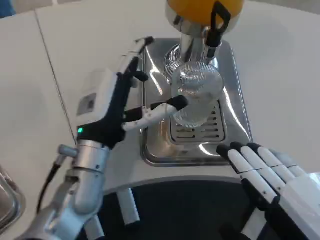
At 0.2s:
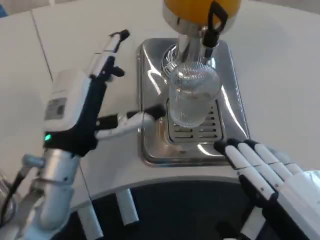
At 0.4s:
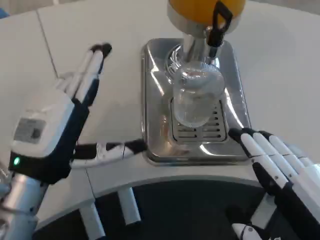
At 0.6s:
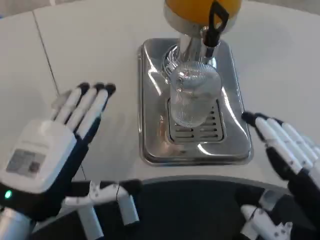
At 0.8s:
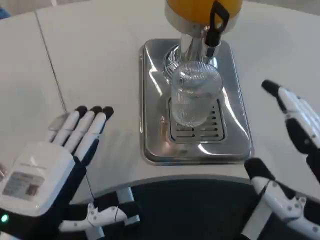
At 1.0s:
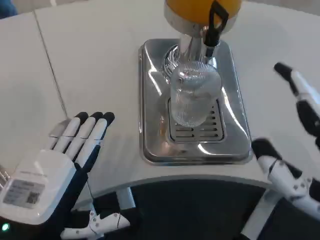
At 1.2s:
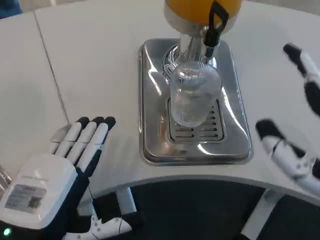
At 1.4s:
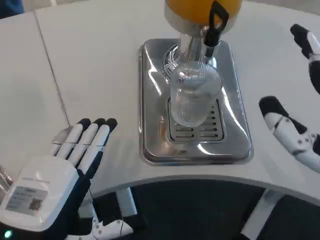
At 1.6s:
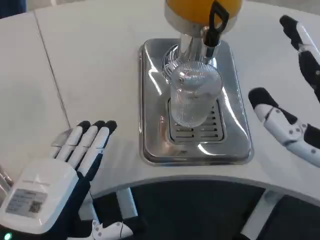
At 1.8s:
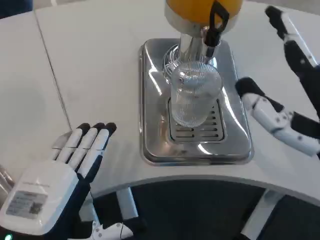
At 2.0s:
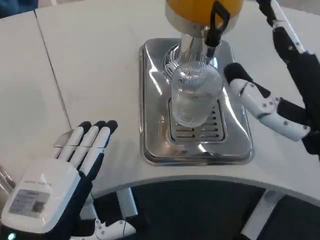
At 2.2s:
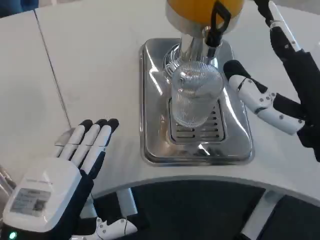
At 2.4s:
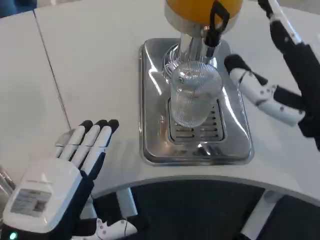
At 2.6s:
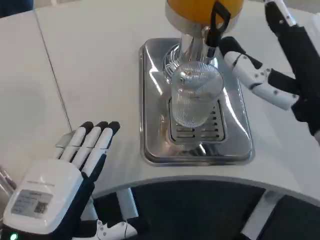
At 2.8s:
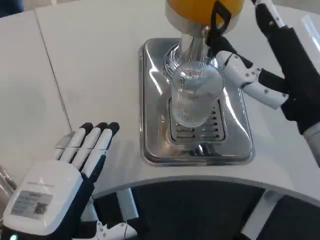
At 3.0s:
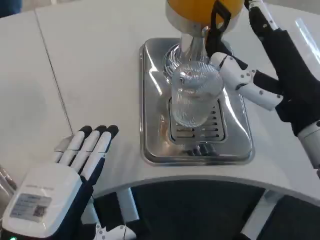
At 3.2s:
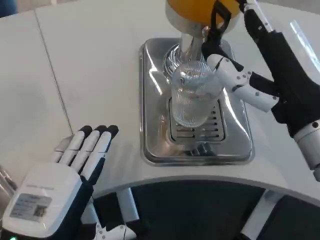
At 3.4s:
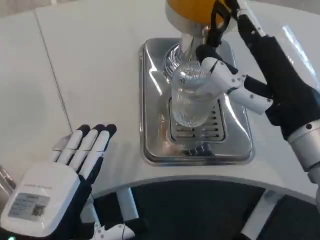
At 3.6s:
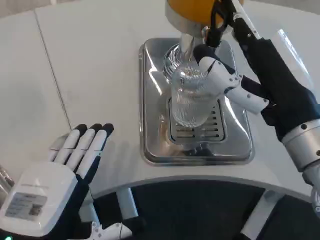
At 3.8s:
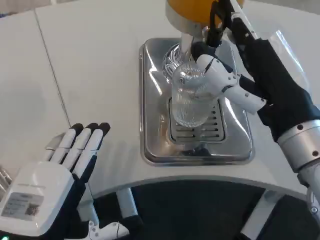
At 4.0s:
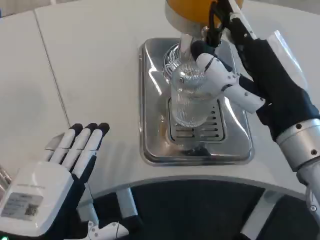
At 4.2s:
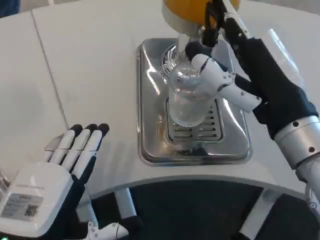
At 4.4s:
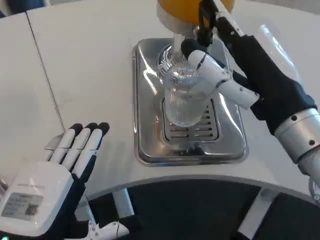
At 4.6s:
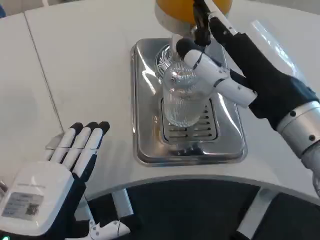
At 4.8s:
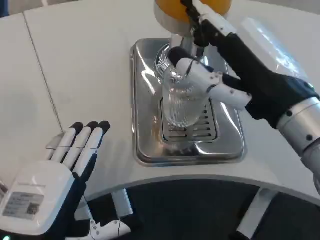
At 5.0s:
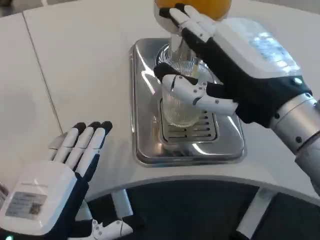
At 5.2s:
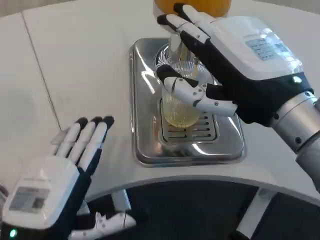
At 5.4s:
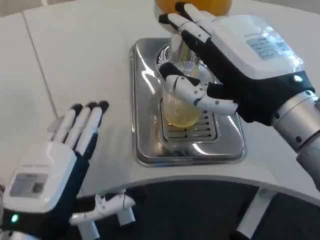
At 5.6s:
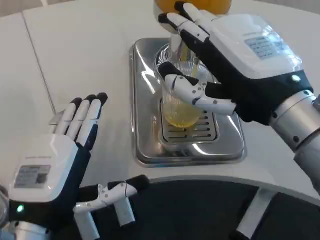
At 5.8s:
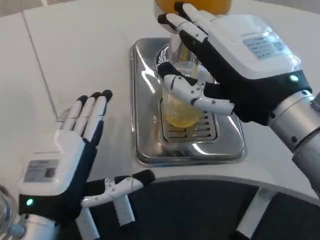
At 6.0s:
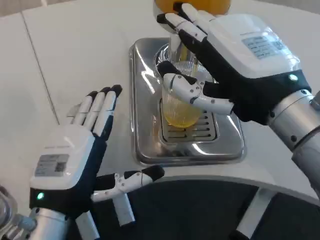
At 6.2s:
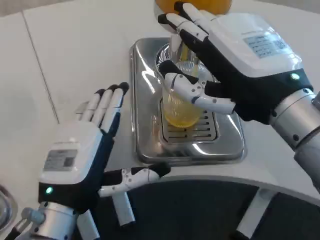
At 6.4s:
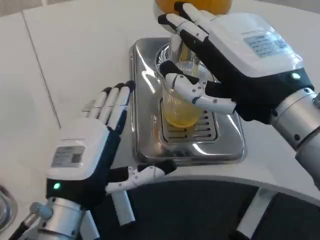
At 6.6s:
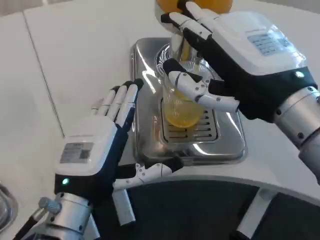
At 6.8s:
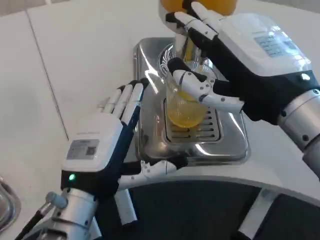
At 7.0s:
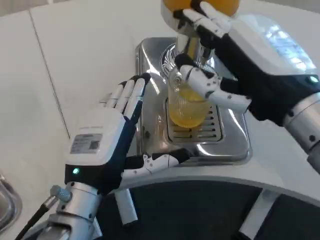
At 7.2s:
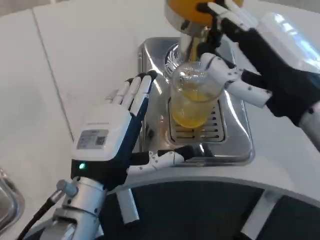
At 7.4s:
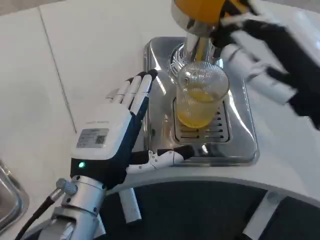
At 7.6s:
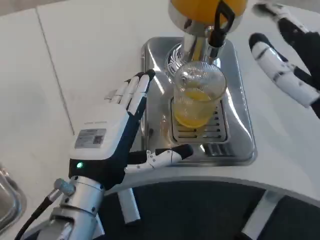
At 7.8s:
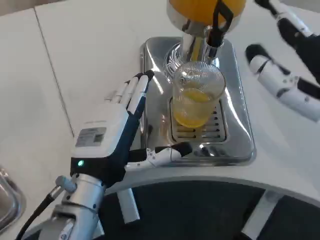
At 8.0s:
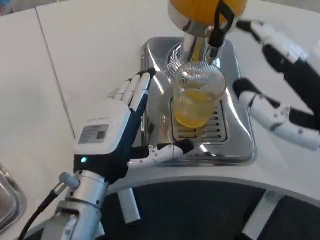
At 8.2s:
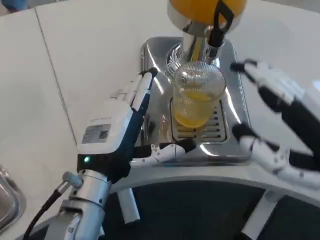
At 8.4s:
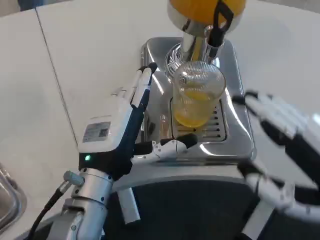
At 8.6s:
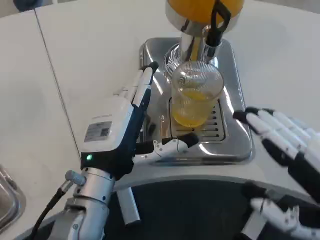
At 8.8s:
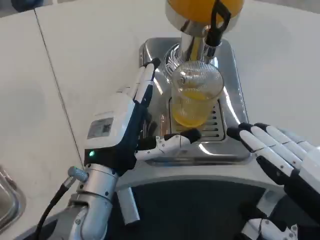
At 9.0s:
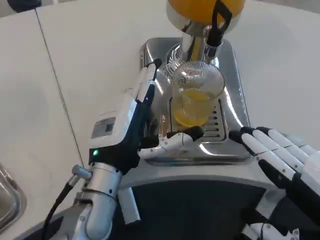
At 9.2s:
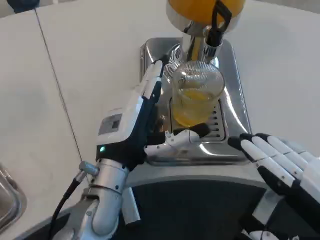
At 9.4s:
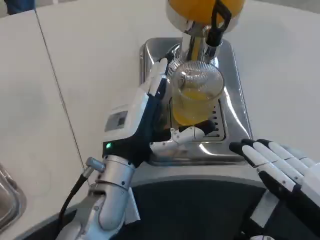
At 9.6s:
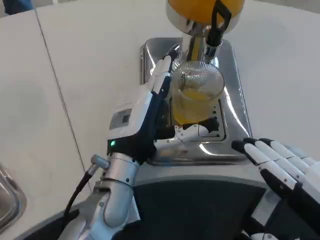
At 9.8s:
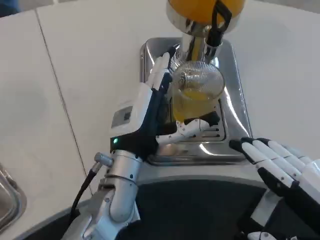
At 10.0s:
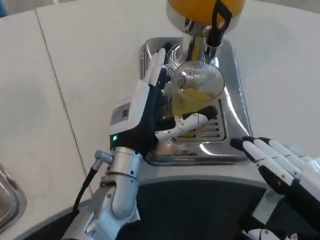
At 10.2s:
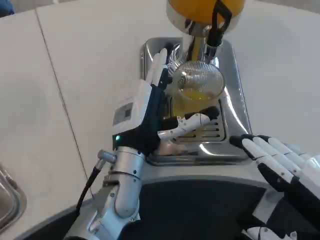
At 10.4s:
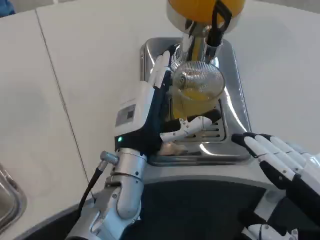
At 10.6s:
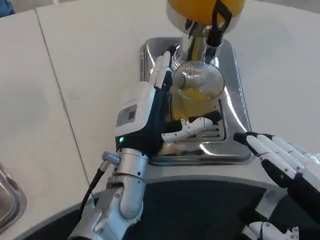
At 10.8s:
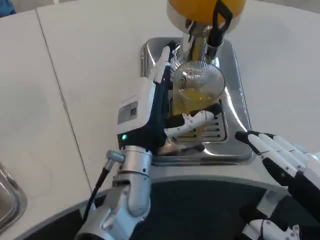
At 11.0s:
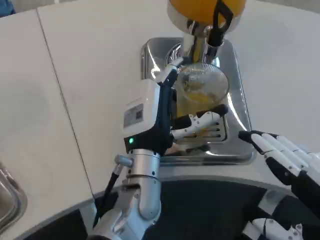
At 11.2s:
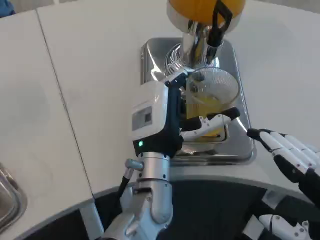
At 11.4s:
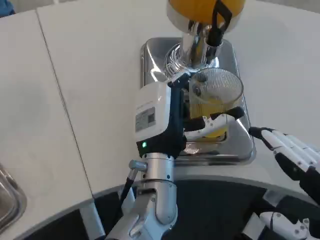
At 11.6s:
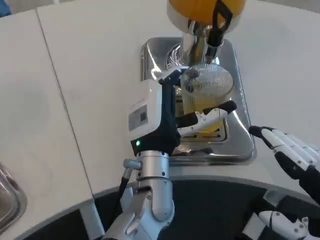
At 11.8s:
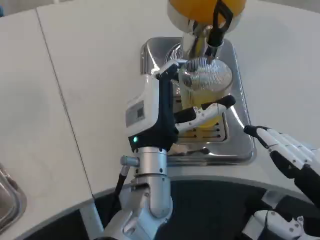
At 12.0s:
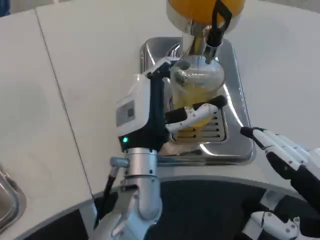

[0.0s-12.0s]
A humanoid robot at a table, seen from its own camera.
Task of the whole recording: Grasp the cup under the faucet to collect the drink, then remove the cup.
0.0s to 1.6s: The left hand shifts approximately 15 cm backward and to the left; the right hand goes roughly 5 cm forward.
1.6s to 3.0s: The right hand moves forward, some 5 cm.
4.4s to 6.0s: The left hand travels forward by about 5 cm.
6.0s to 7.6s: The right hand moves to the right, approximately 5 cm. Meanwhile the left hand ends up roughly 5 cm from where it was.
7.6s to 9.0s: The right hand travels backward and downward by approximately 10 cm.
9.0s to 10.4s: There are only small adjustments of the hands.
10.4s to 12.0s: The hands stay close to where they were, moving slightly.

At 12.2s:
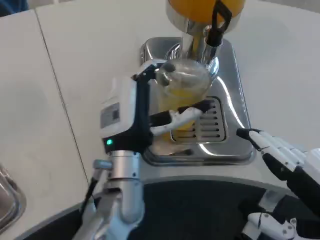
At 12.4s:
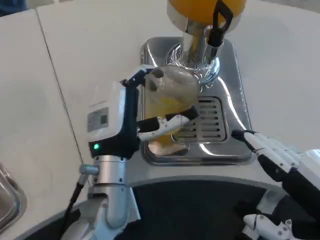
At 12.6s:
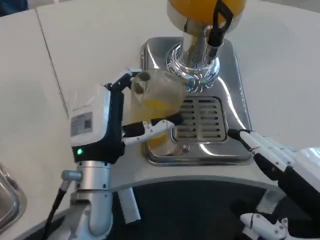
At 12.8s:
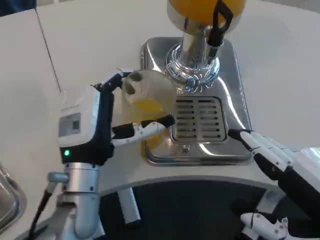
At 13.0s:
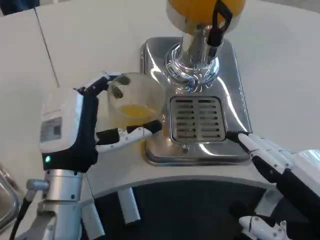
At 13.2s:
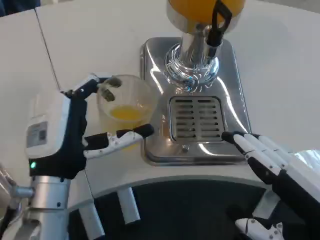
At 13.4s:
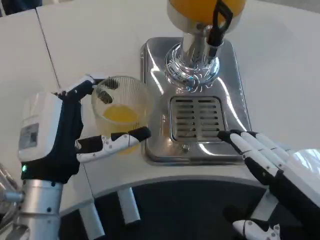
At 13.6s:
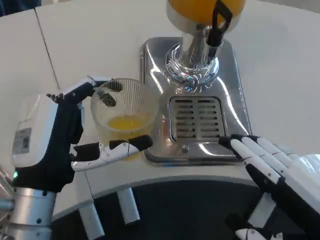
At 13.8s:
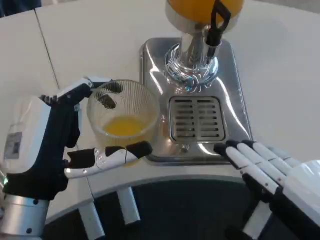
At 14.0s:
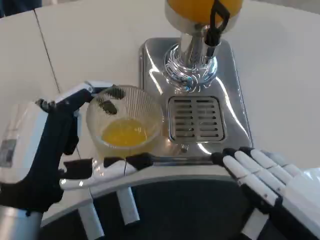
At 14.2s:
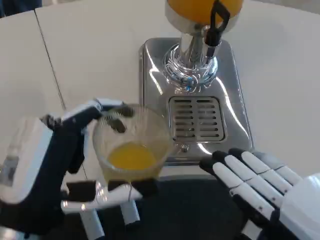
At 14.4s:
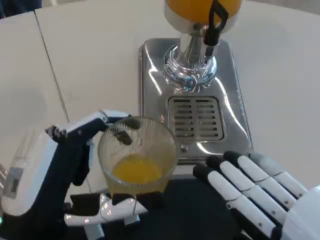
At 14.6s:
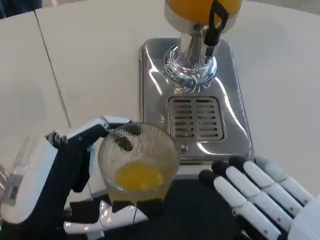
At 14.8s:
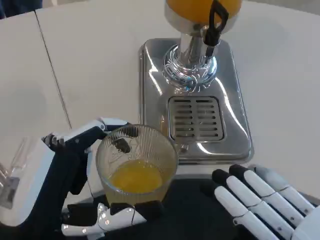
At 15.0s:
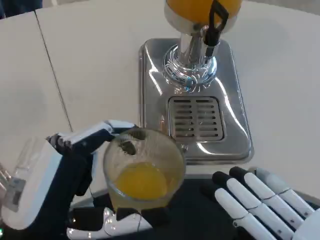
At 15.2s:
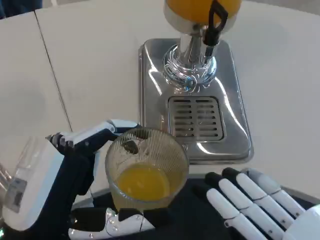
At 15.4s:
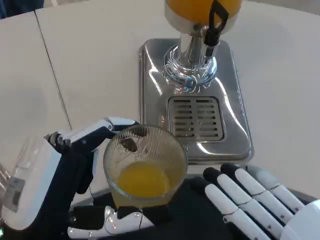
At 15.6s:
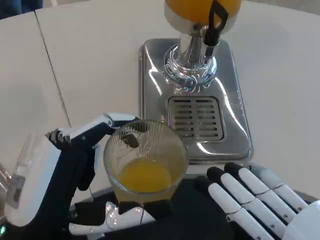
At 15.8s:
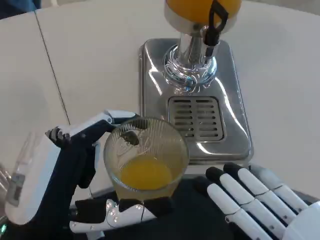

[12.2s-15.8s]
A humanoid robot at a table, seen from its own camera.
Task of the whole recording: Grasp the cup under the faucet to collect the drink, then remove the cup.
12.2s to 14.0s: The left hand goes about 15 cm backward and to the left.

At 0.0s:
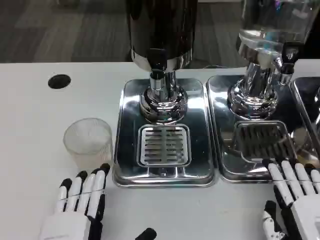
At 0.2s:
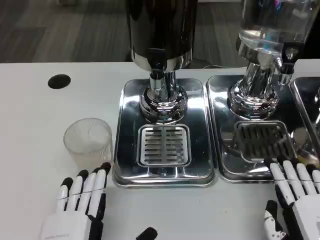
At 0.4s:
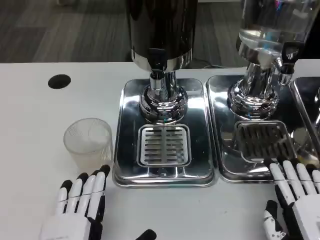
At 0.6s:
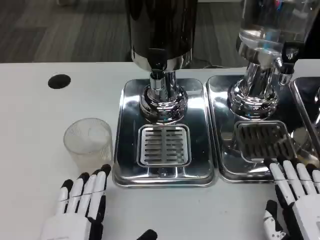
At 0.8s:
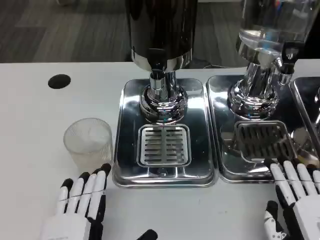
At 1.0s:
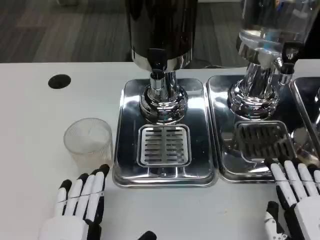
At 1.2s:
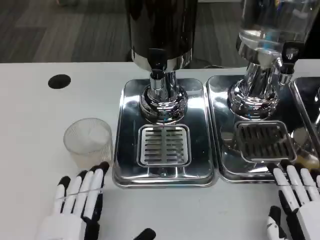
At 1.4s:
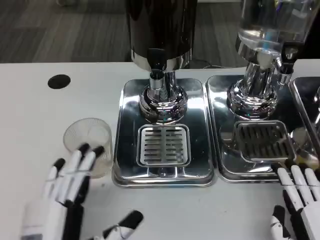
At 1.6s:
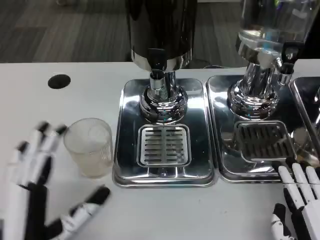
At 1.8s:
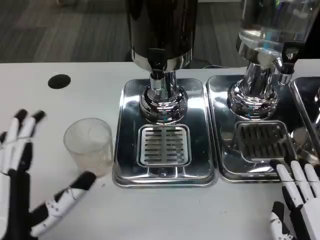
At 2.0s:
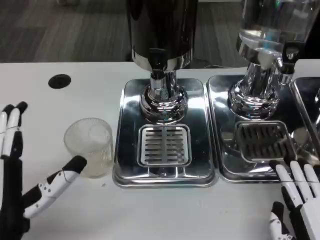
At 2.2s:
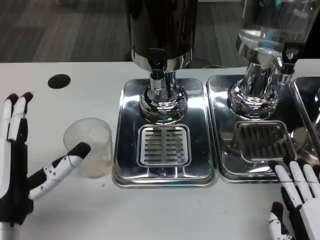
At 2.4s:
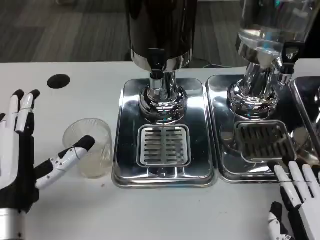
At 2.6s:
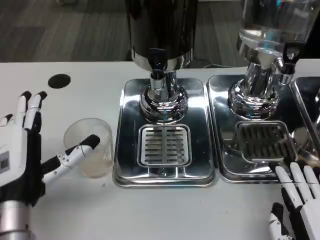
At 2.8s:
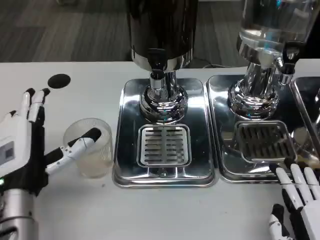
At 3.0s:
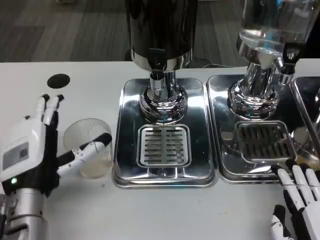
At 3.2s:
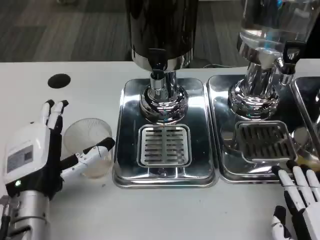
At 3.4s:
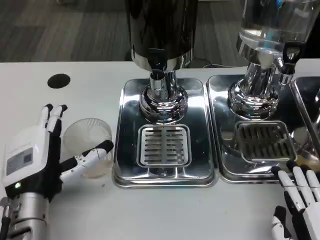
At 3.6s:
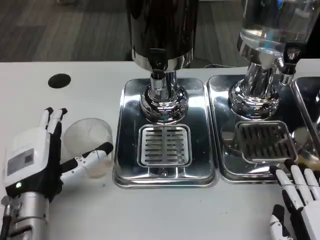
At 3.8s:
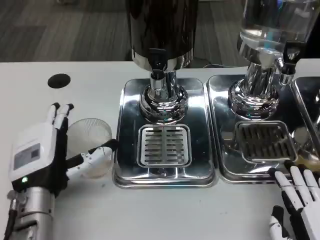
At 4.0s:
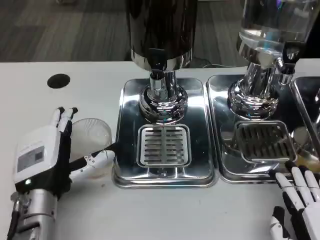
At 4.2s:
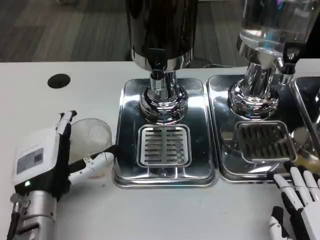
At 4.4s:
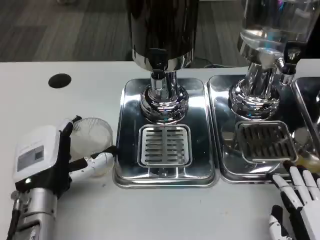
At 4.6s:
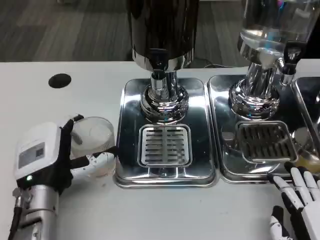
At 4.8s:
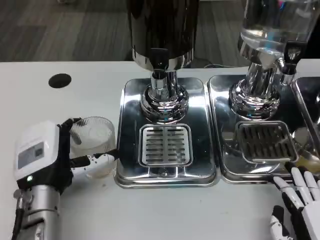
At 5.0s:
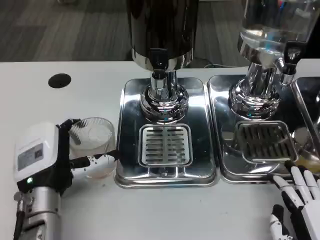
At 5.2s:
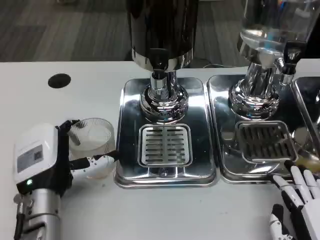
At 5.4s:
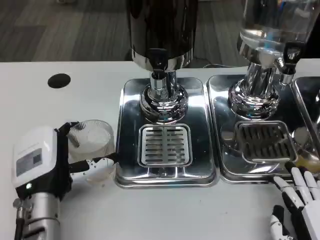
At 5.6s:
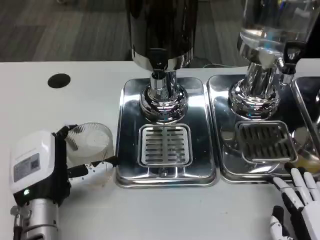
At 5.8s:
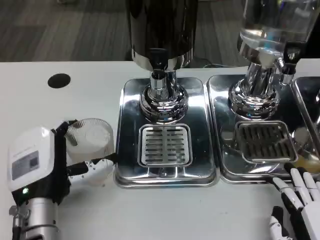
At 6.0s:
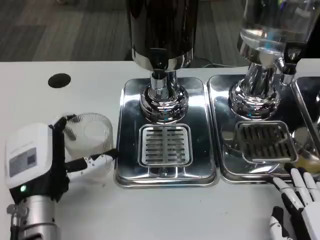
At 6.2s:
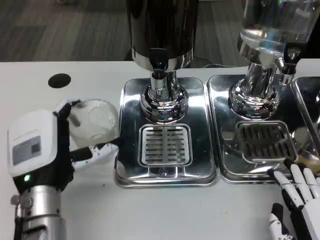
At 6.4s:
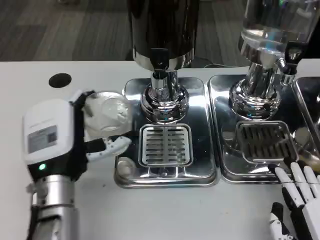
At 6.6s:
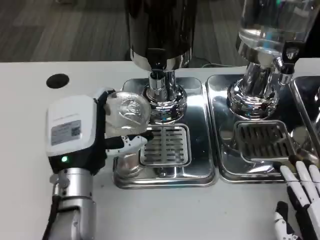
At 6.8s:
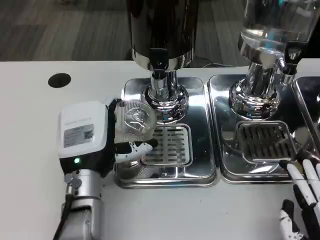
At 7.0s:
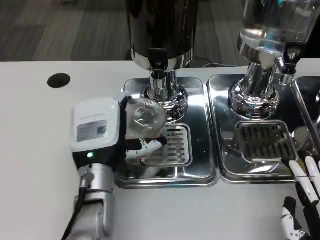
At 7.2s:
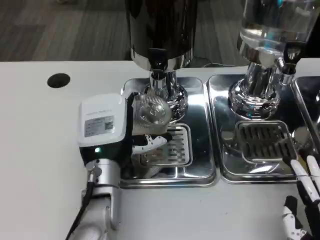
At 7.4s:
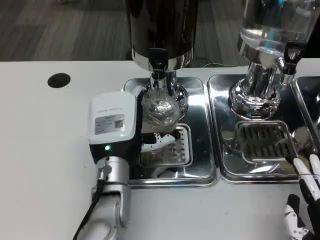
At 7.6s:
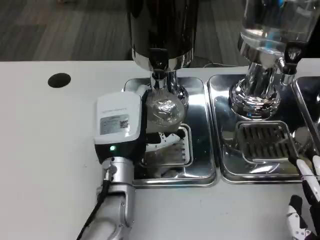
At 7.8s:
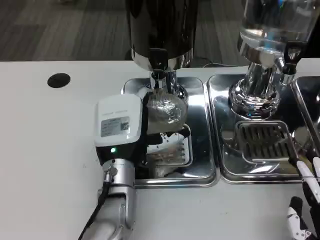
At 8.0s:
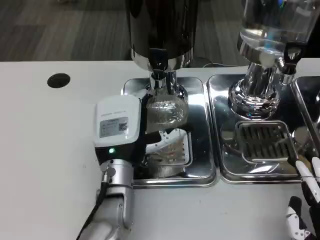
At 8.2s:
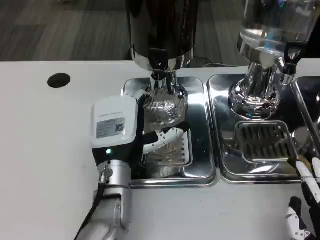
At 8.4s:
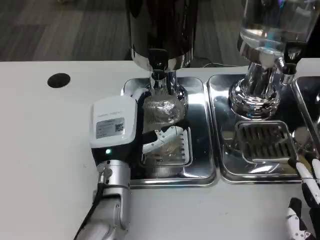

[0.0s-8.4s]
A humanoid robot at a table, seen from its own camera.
Task of the whole recording: Grasp the cup under the faucet to collect the drink, then remove the cup.
0.0s to 1.4s: The hands move only a little.
1.4s to 2.8s: The left hand heads forward, covering some 10 cm.
2.8s to 5.6s: There are only small adjustments of the hands.
5.6s to 7.0s: The left hand shifts approximately 5 cm to the right.
7.0s to 8.4s: The hands move only a little.
